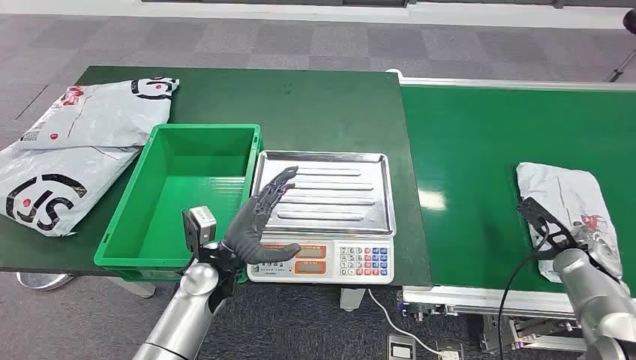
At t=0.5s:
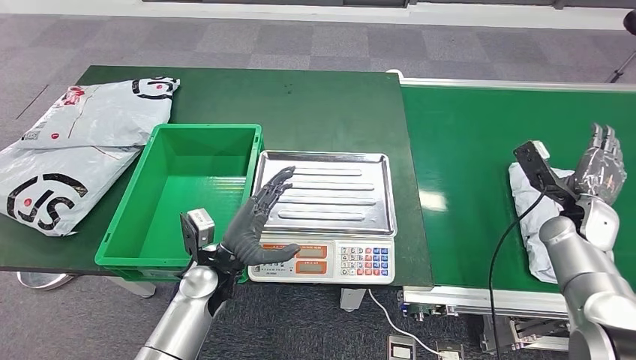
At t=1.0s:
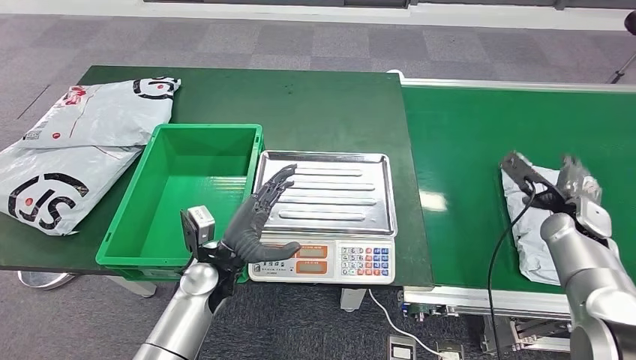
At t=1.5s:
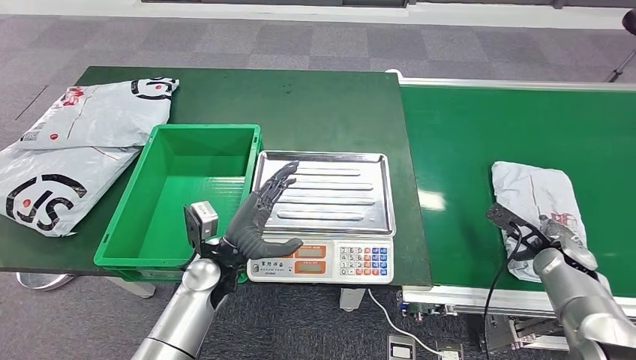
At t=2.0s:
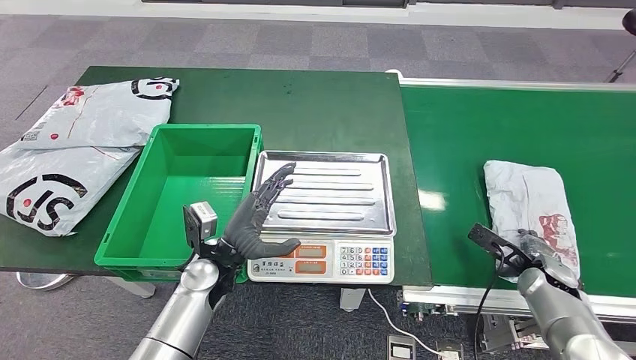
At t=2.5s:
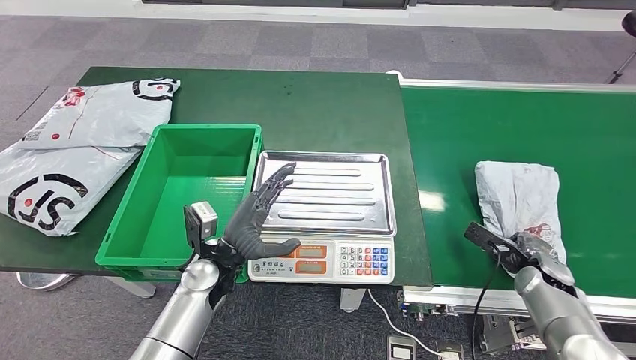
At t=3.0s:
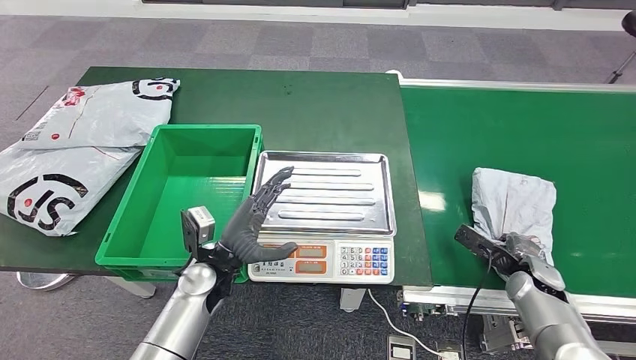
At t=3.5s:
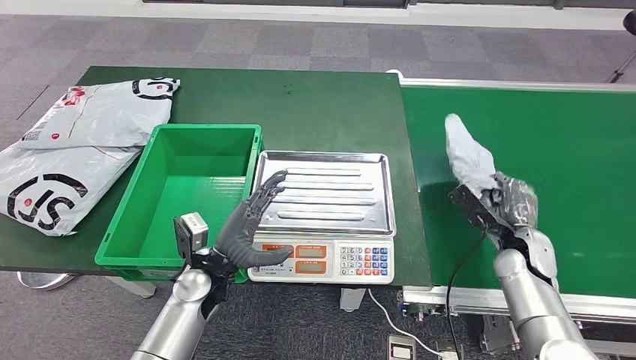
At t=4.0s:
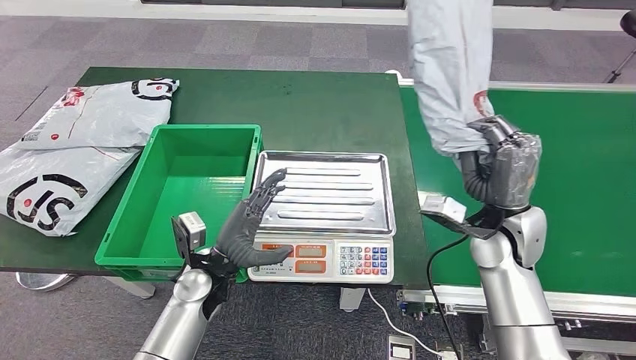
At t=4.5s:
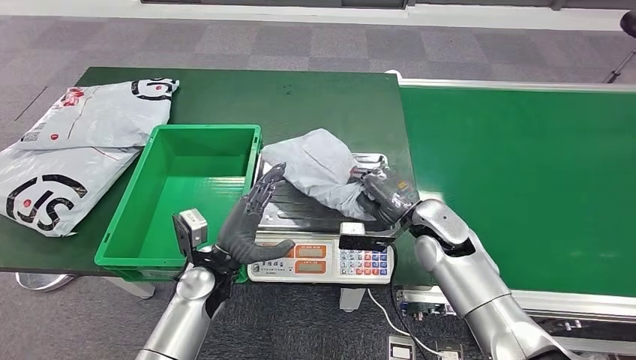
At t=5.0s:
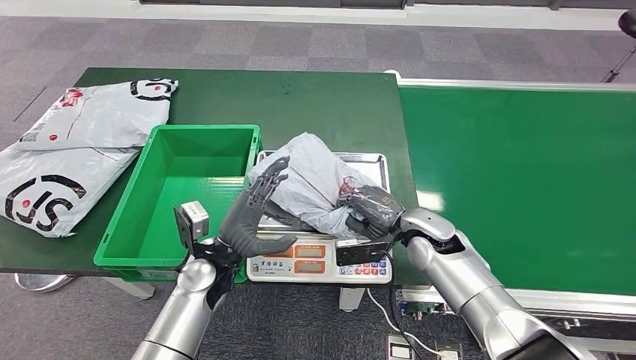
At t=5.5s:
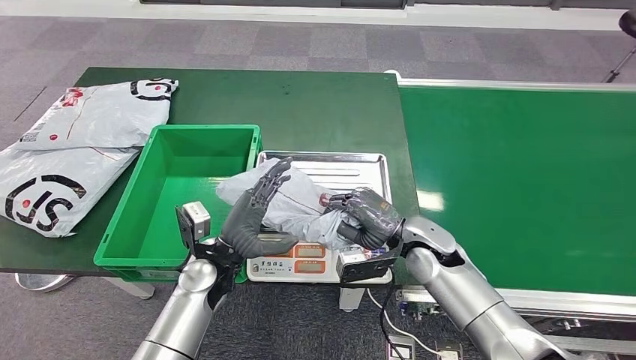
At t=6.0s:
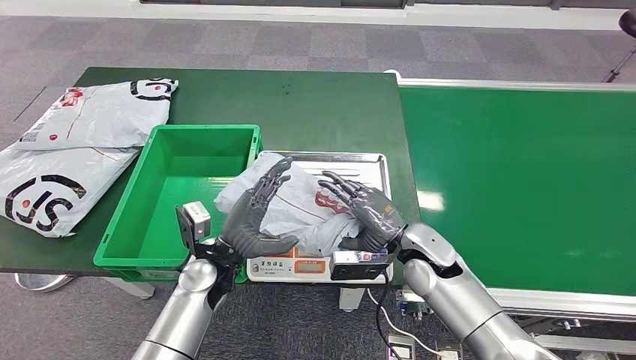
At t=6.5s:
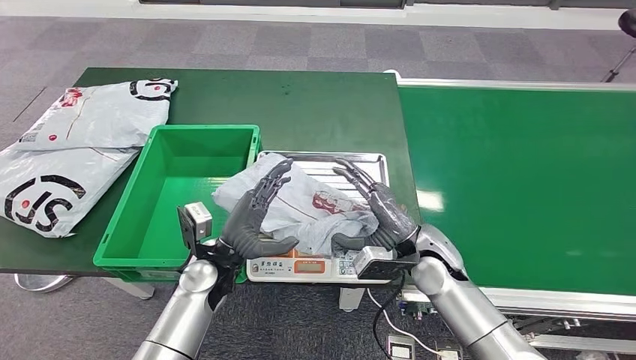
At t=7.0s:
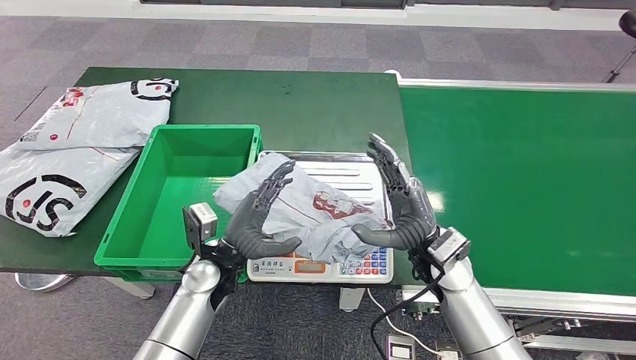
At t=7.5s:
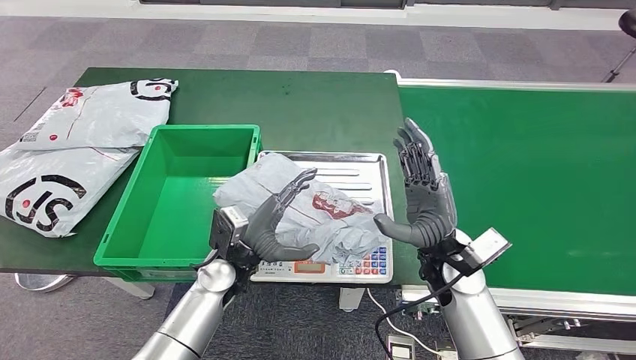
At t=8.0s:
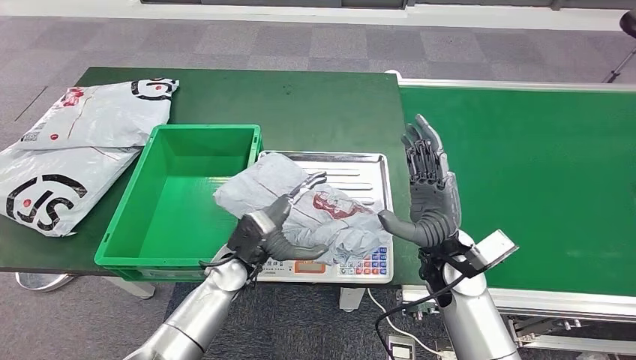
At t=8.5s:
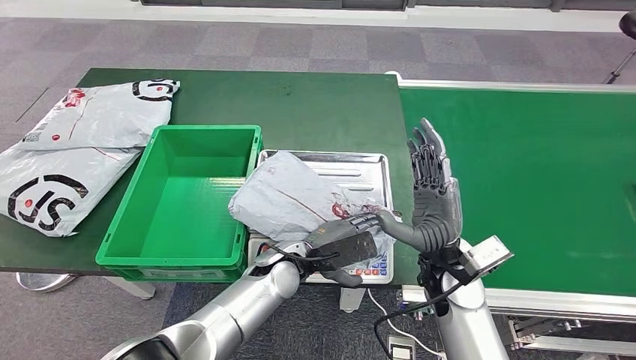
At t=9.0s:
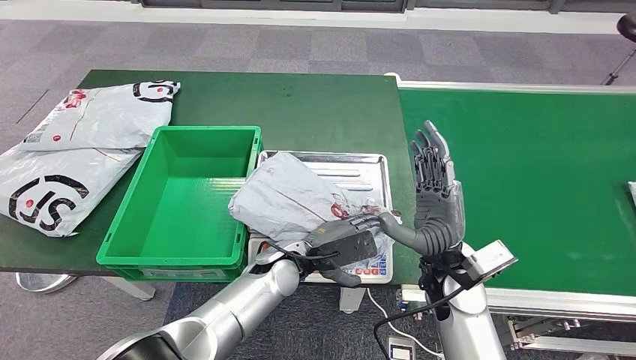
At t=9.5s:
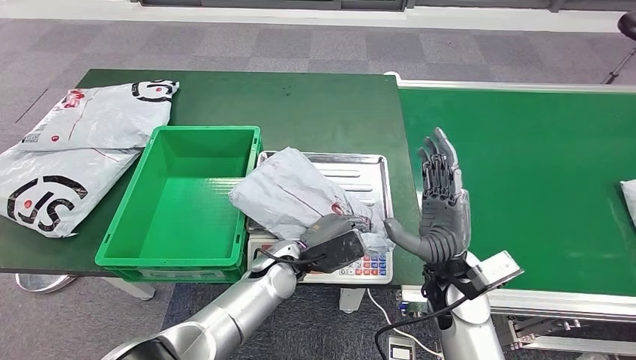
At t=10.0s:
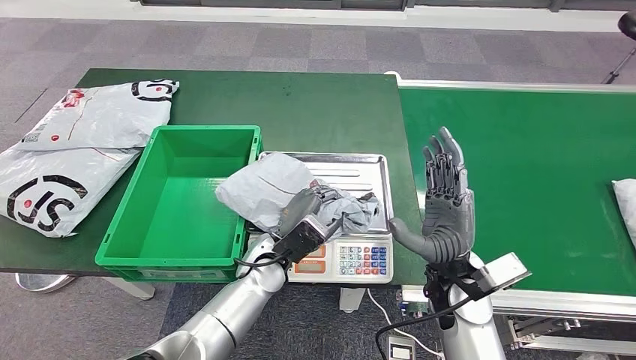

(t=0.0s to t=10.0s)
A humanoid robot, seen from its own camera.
Step, t=0.0s - t=3.0s: Take the parcel off the conveyor belt.
Step, t=4.0s - t=7.0s: Place the parcel onto the inbound machine.
t=2.0s - t=4.0s: The right hand travels to the left and upward by some 20 cm.

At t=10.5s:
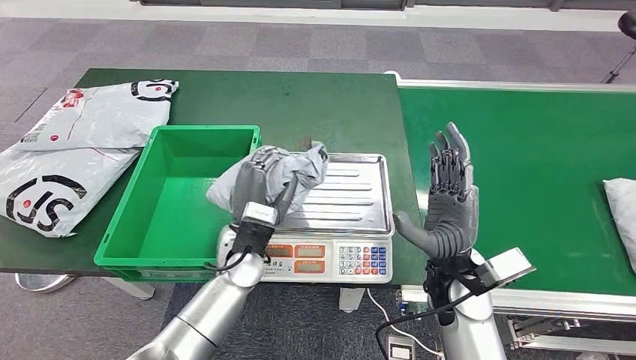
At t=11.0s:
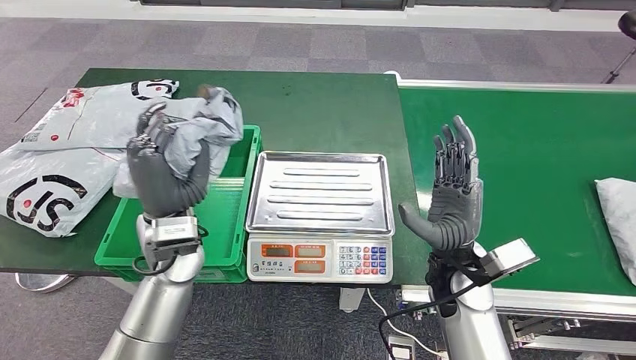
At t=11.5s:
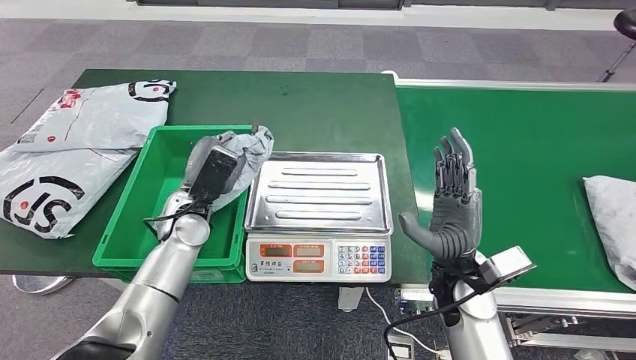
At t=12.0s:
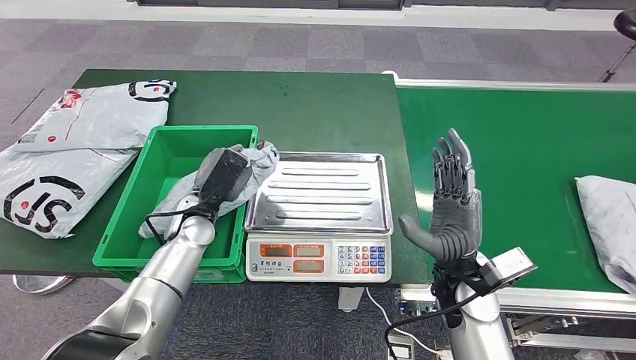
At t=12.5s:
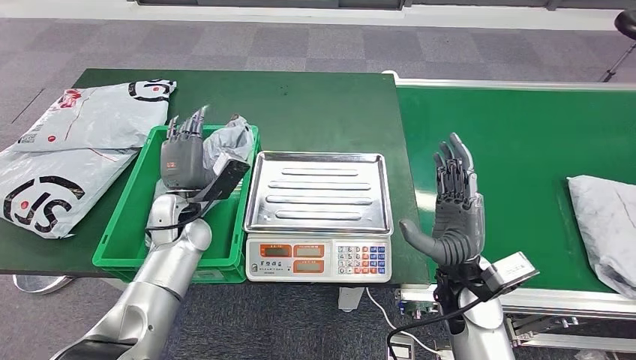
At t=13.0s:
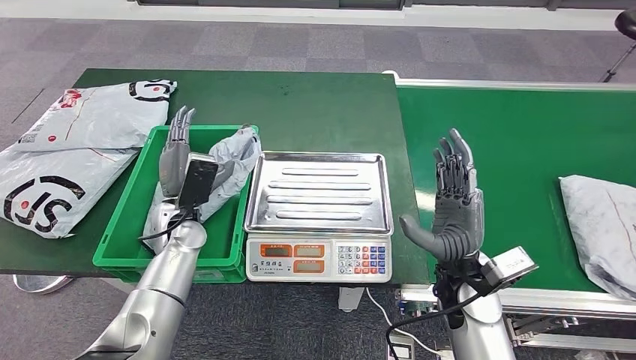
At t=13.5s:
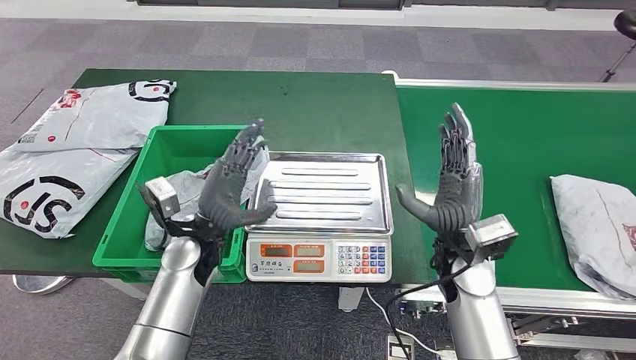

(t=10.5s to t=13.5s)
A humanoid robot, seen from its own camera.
Step, t=11.5s - t=13.5s: Put the parcel inside the courier box.
t=12.0s - t=13.5s: The left hand changes place by roughly 5 cm.

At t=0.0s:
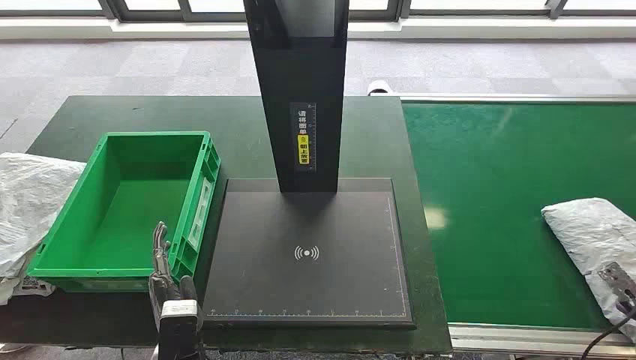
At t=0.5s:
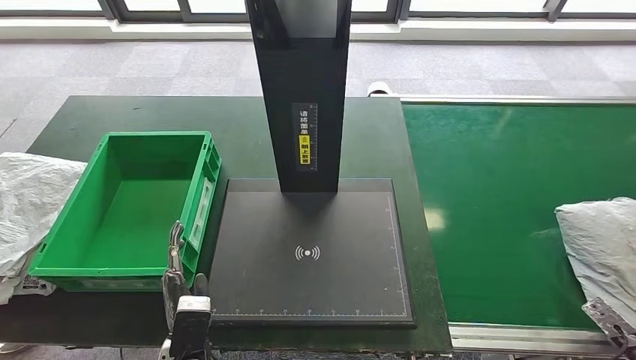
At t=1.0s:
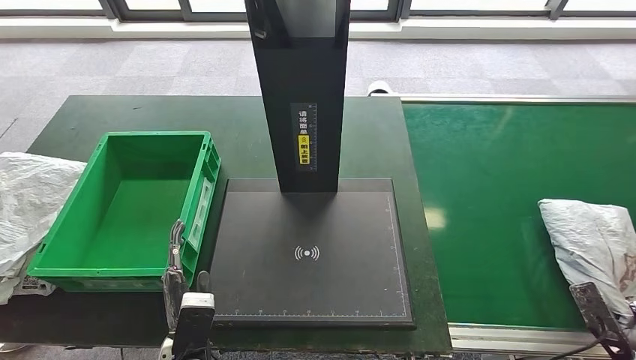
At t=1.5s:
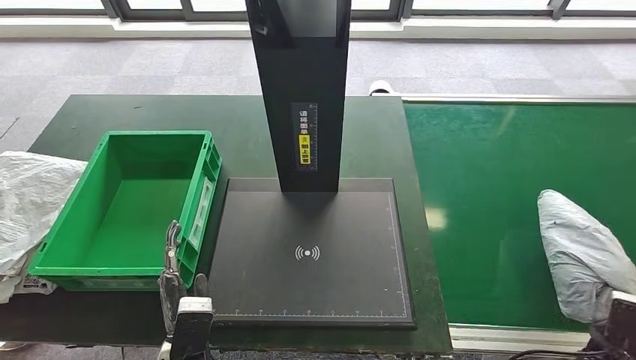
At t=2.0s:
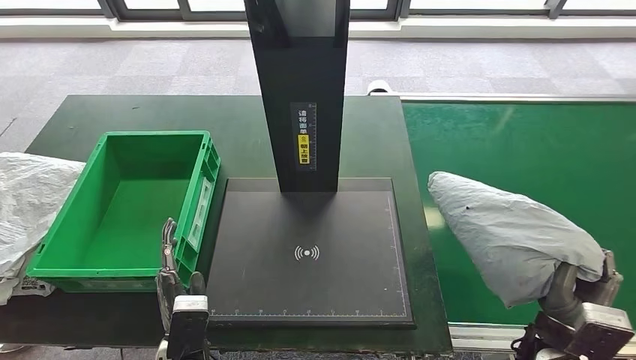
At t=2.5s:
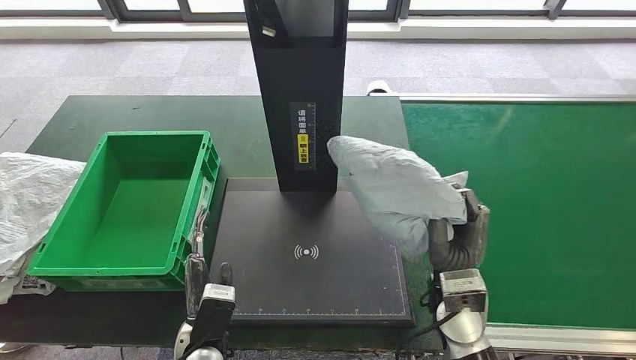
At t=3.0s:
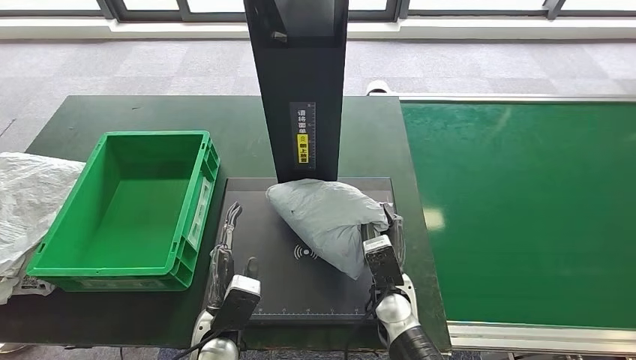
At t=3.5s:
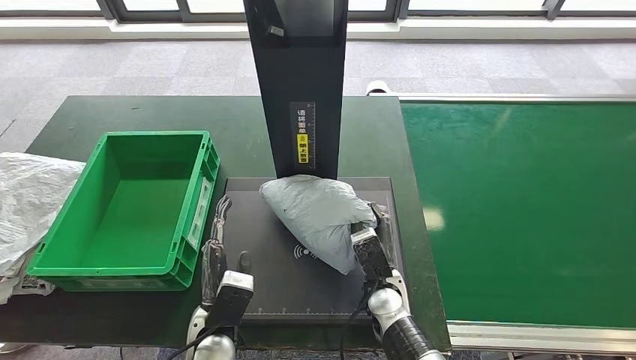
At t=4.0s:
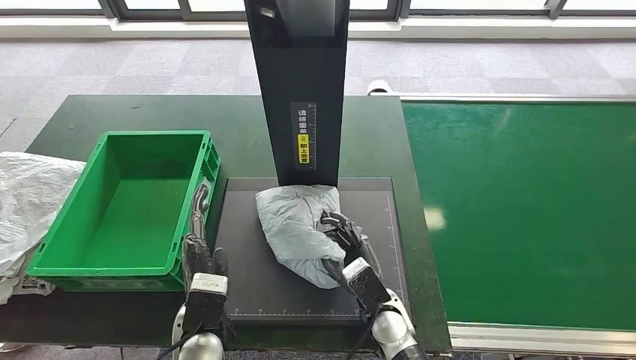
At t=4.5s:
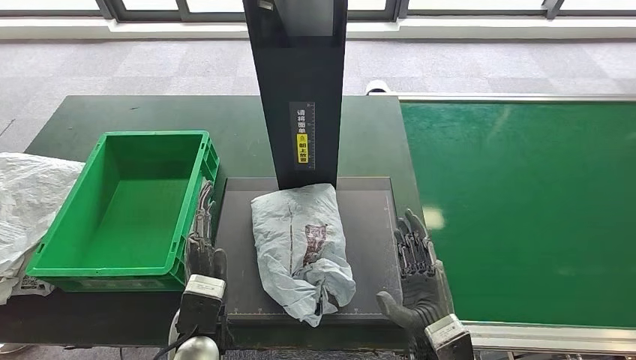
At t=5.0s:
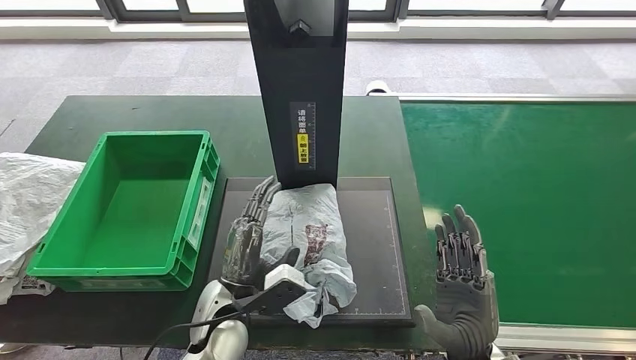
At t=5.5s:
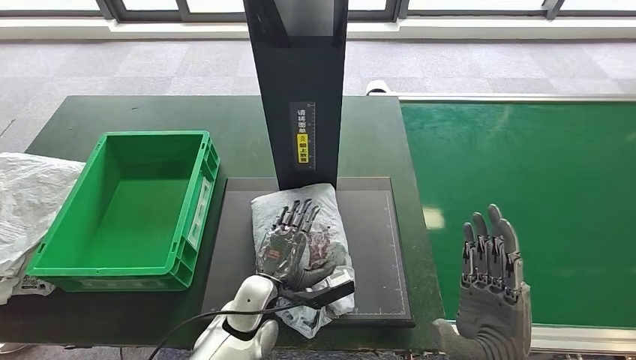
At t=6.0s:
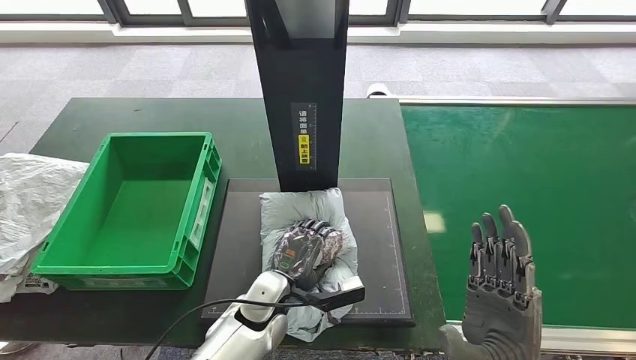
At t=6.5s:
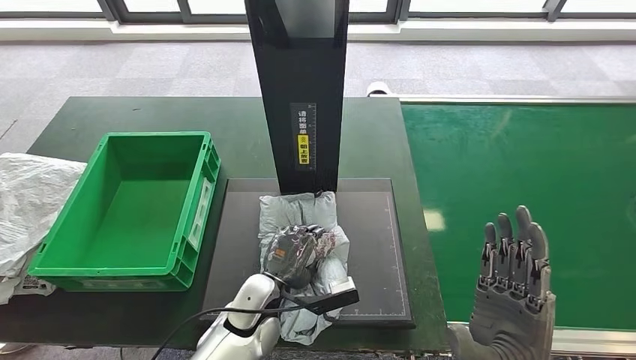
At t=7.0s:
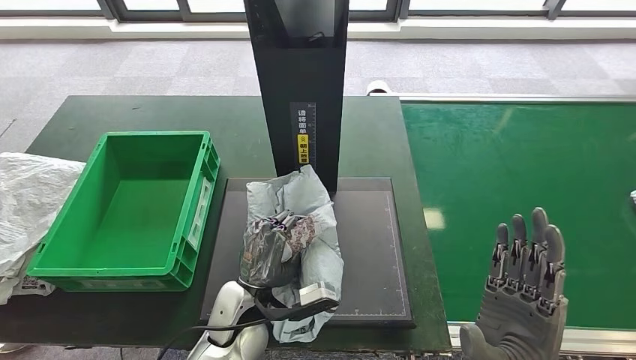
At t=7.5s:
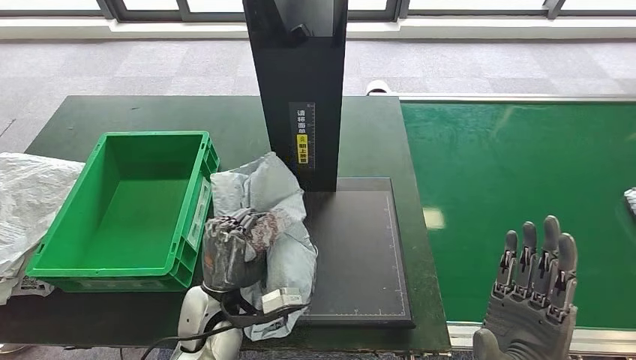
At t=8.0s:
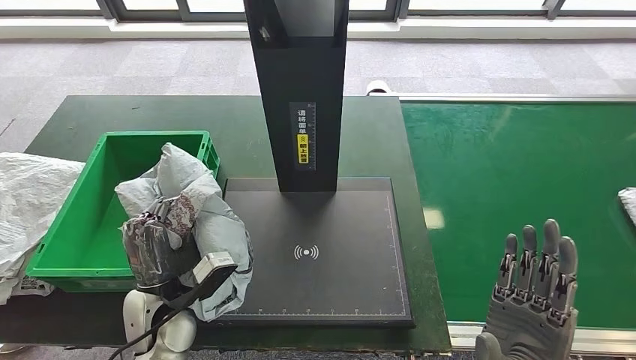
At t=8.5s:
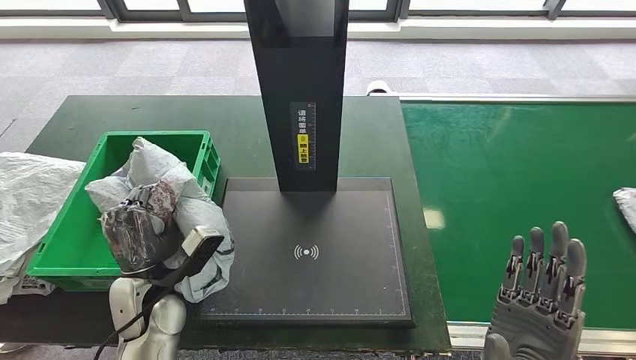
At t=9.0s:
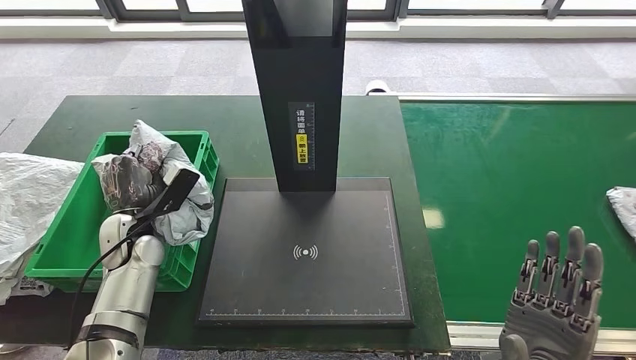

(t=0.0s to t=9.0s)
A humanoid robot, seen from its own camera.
Step, t=0.0s - t=2.5s: Take the parcel off the conveyor belt.
Step, t=3.0s - t=4.0s: Place the parcel onto the inbound machine.
Step, t=6.5s - t=7.0s: Pick up the parcel from the inbound machine.
t=4.5s - t=7.0s: The right hand goes approximately 10 cm upward.
